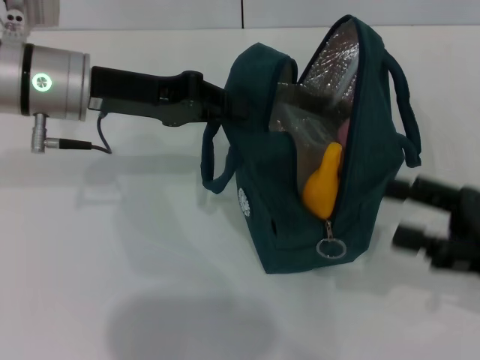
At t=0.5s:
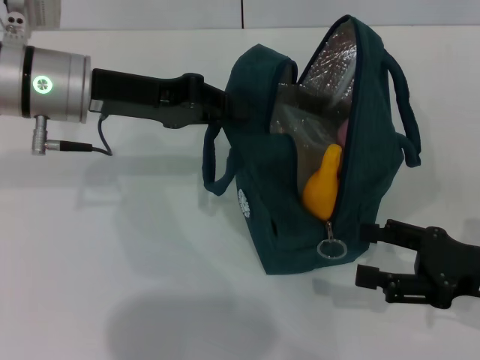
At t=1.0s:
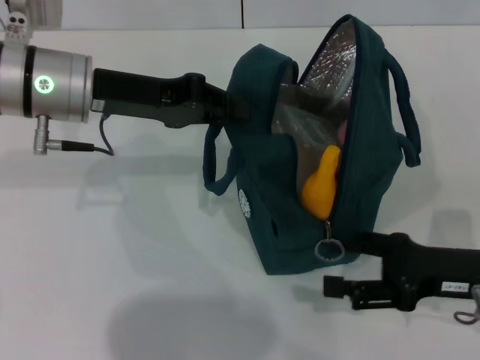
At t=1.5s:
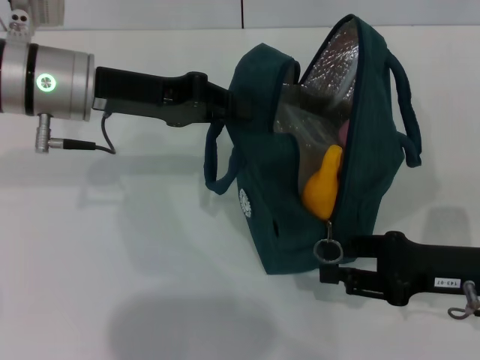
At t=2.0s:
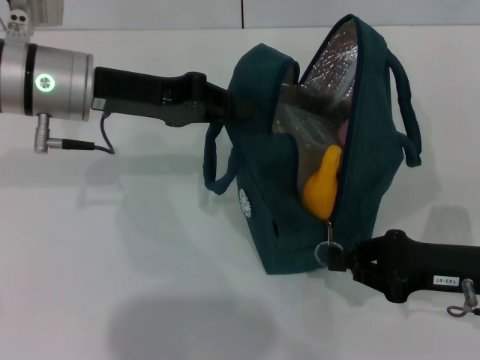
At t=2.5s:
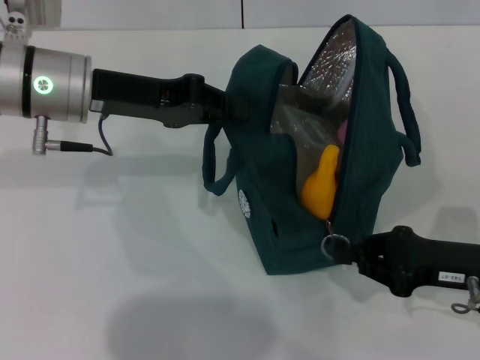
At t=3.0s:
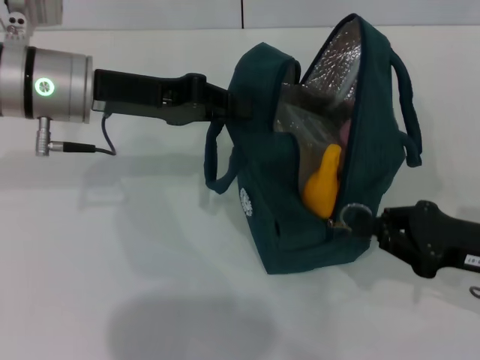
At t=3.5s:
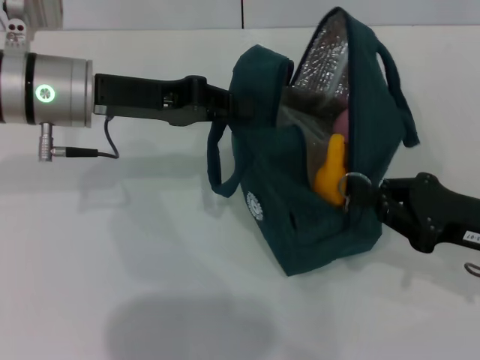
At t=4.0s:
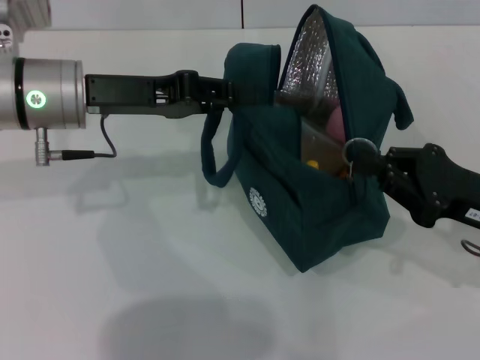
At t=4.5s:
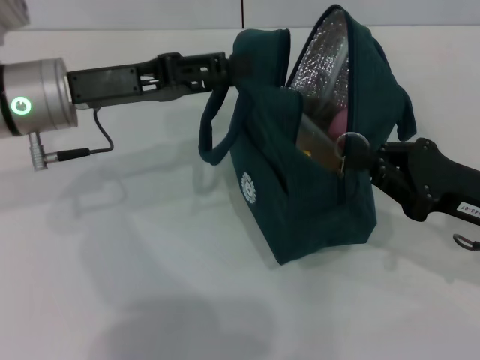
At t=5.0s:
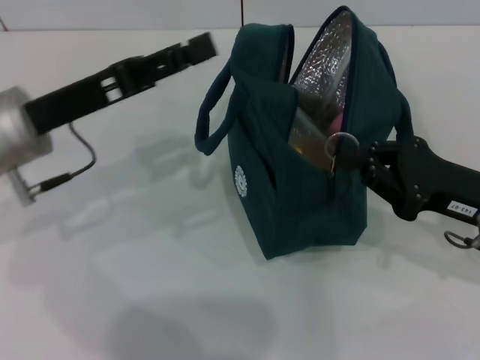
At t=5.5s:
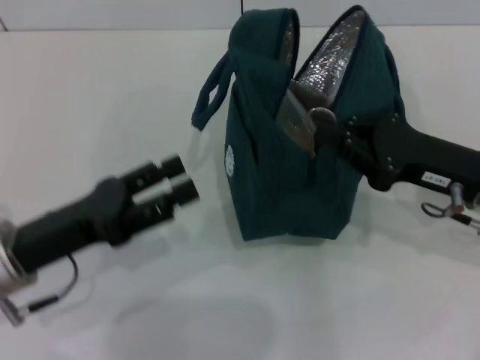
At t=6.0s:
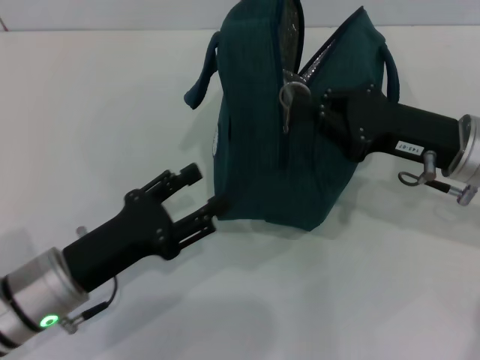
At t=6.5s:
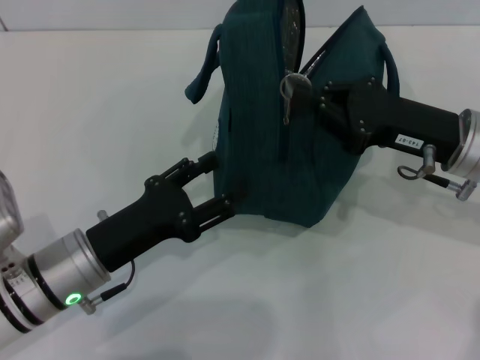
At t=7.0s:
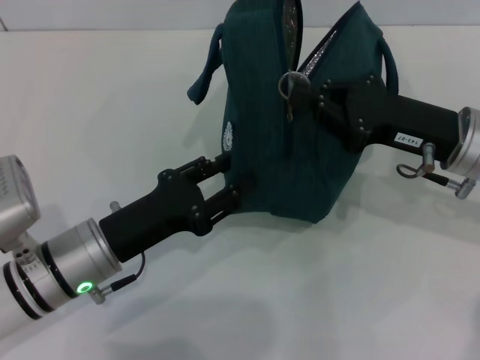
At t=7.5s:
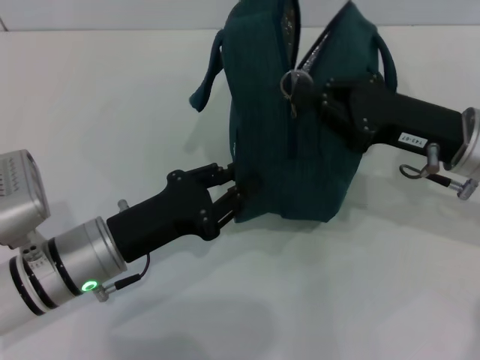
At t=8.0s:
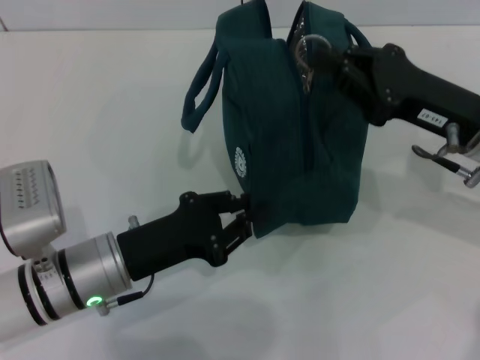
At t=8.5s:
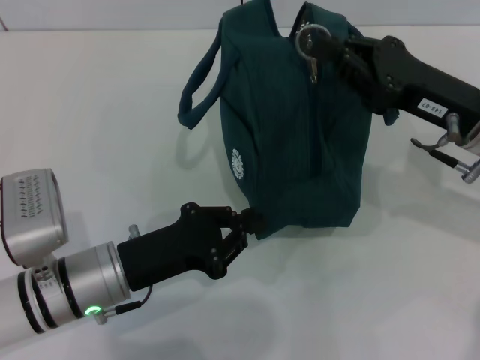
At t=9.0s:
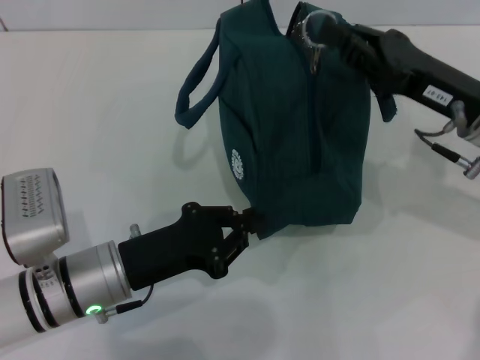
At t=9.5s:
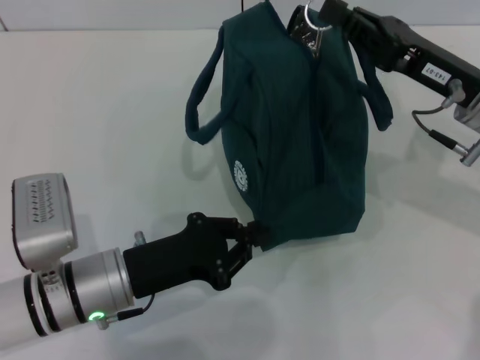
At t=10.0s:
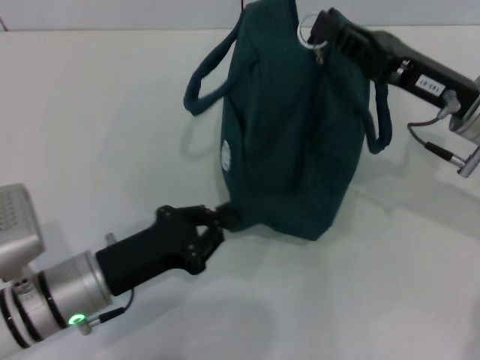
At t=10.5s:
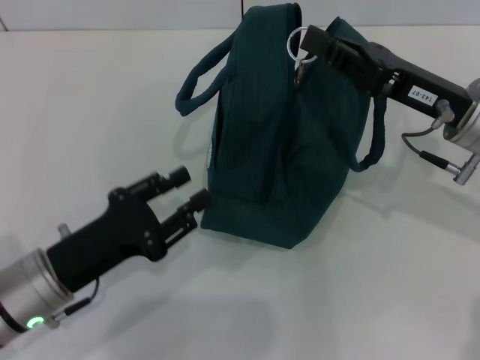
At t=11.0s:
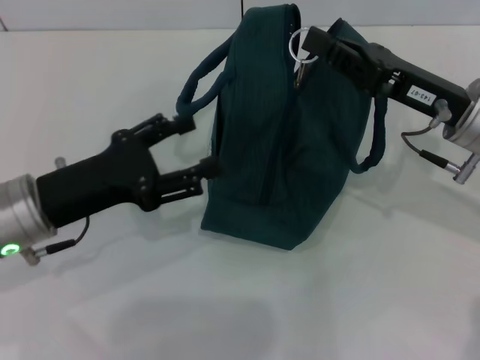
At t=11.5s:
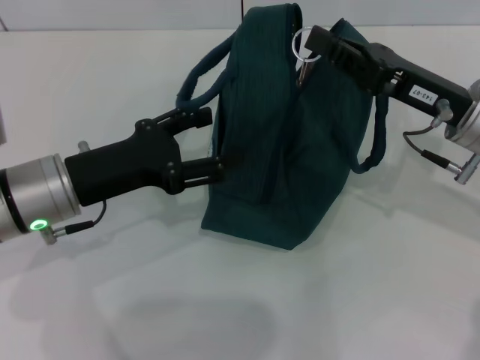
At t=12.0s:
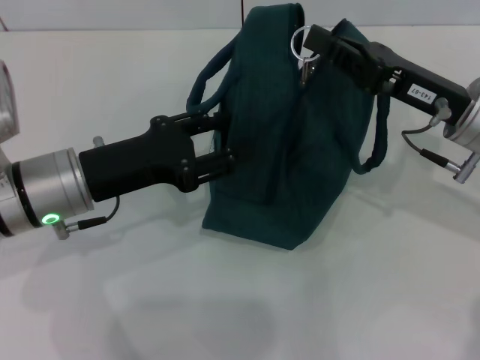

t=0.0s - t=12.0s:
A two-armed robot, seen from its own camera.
Step, t=0.0s - t=4.5s: Hold the lunch bag with your left hand.
t=0.0s - t=2.0s: The right gripper travels downward by roughly 5 cm, and closes its fingers.
t=4.0s - t=6.0s: The left gripper travels backward and downward by some 20 cm, and opens. The right gripper travels forward and to the left by approximately 10 cm.
t=6.0s - t=8.0s: The left gripper closes.
t=10.0s - t=12.0s: The left gripper travels upward and forward by some 10 cm, and opens.

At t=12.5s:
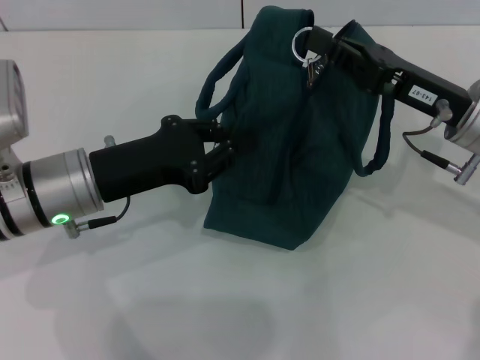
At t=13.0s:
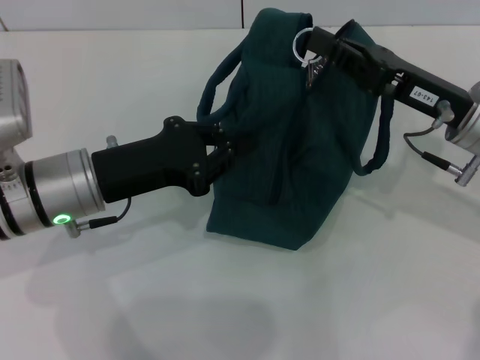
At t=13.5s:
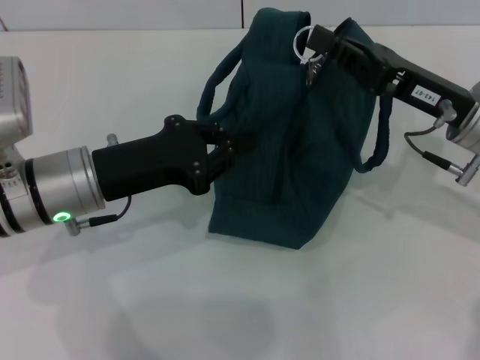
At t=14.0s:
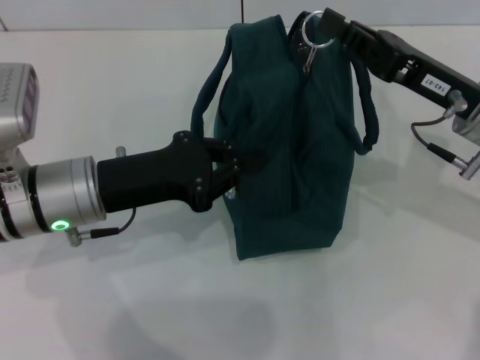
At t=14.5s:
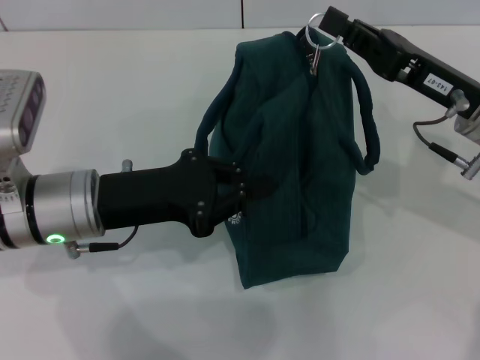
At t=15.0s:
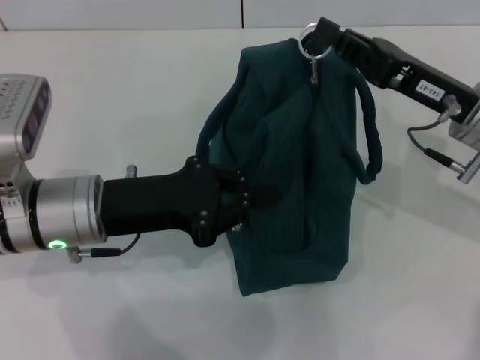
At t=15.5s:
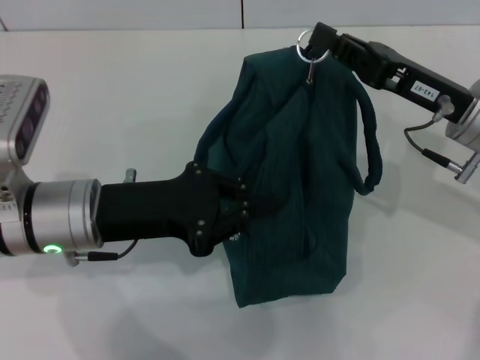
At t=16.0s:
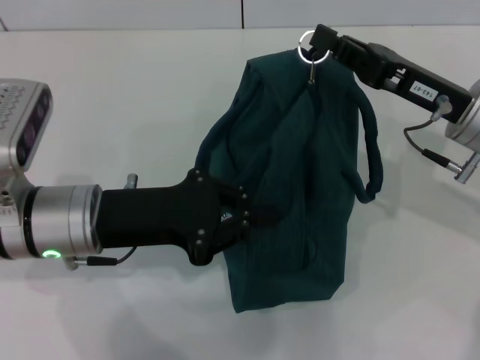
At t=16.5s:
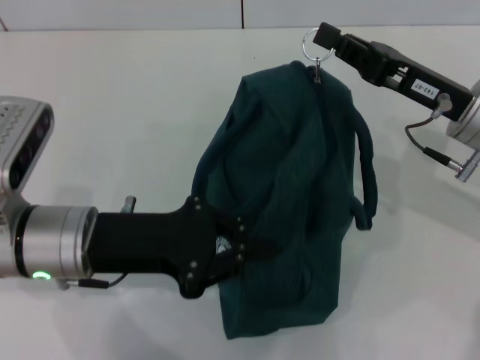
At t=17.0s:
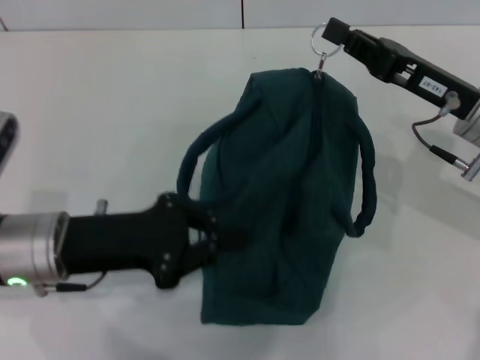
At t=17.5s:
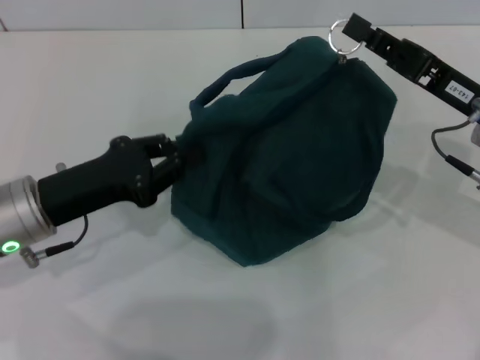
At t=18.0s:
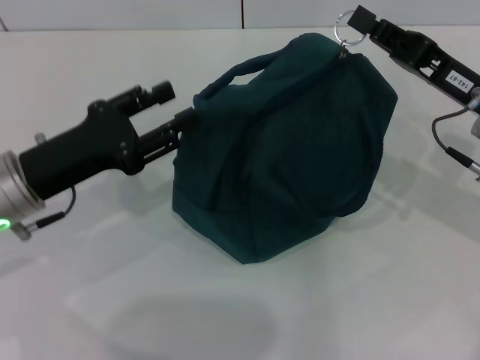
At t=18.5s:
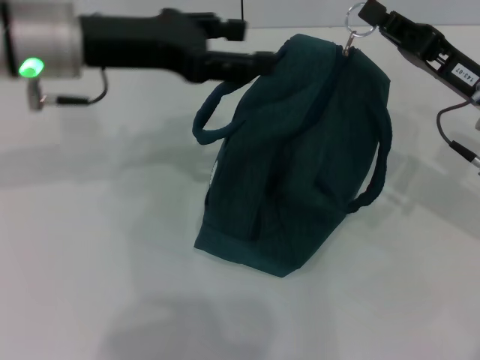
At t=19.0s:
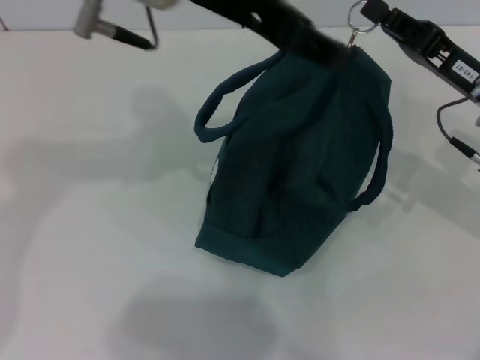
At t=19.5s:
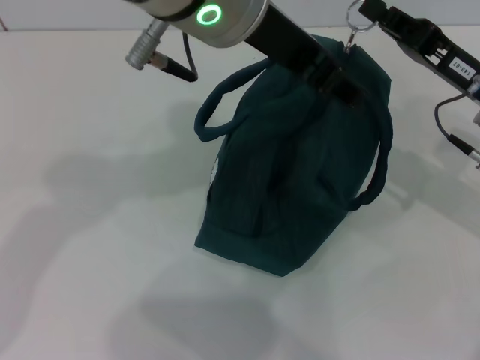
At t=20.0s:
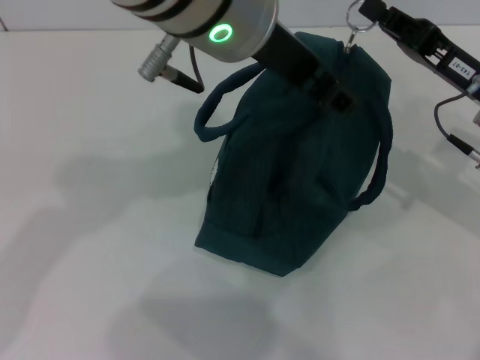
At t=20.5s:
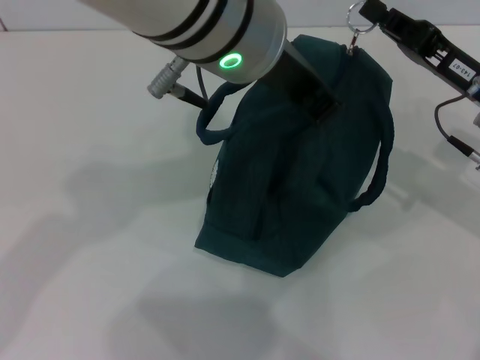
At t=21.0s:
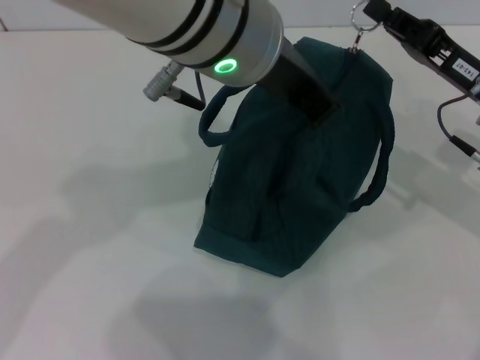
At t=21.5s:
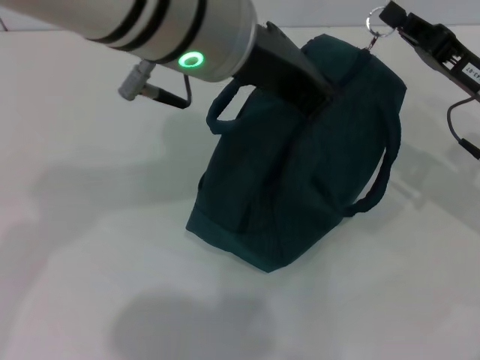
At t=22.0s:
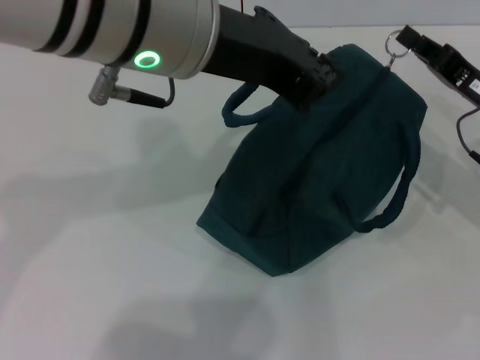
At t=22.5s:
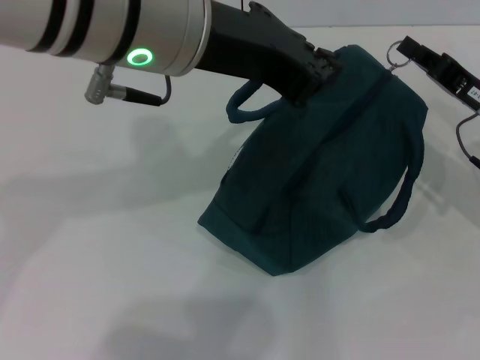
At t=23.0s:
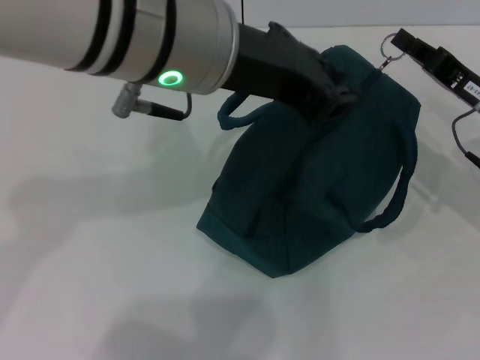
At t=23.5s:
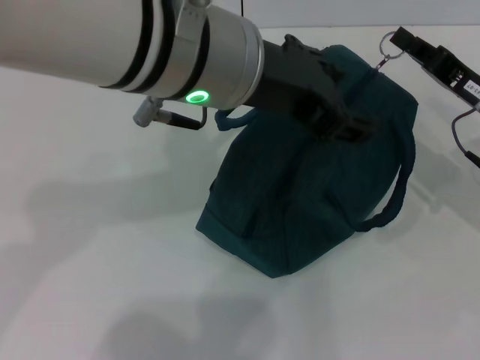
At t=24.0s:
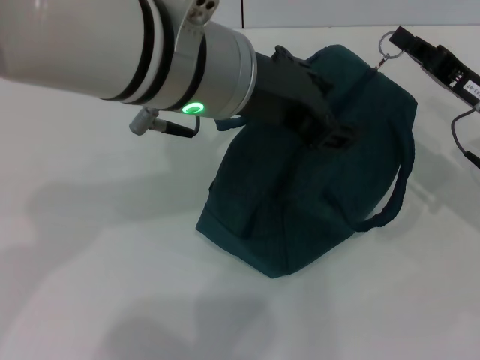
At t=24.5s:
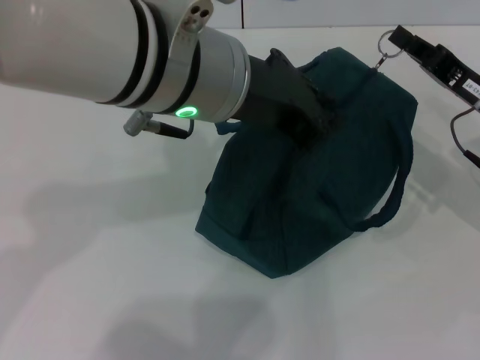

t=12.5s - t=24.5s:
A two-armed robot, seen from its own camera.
t=12.5s - t=14.5s: The left gripper closes up.
t=16.5s - t=18.5s: The left gripper goes roughly 15 cm upward and forward, and opens its fingers.
t=18.5s - t=20.5s: The left gripper shifts about 15 cm to the right and upward, and closes its fingers.
t=20.5s - t=22.5s: The left gripper is displaced to the left by about 5 cm, and closes its fingers.
t=22.5s - t=24.5s: The left gripper opens its fingers.

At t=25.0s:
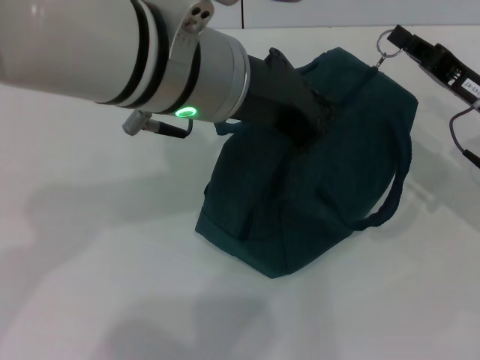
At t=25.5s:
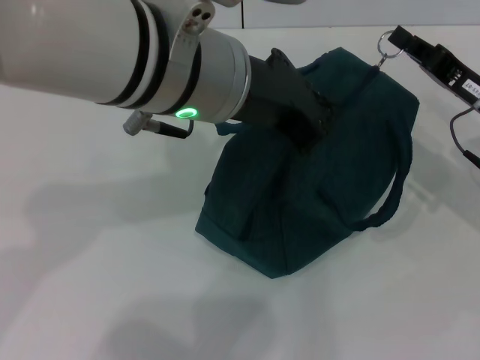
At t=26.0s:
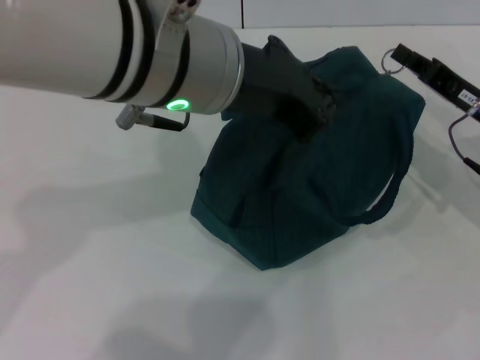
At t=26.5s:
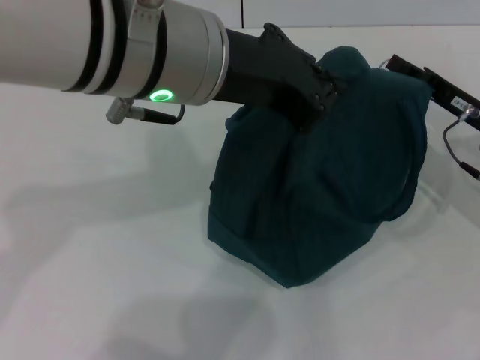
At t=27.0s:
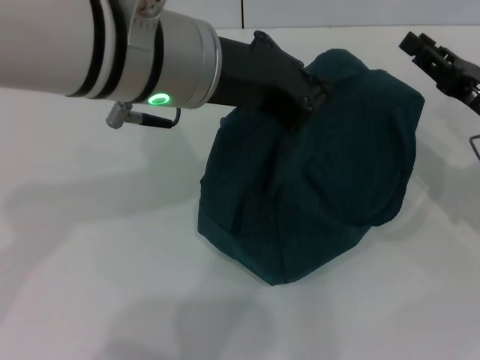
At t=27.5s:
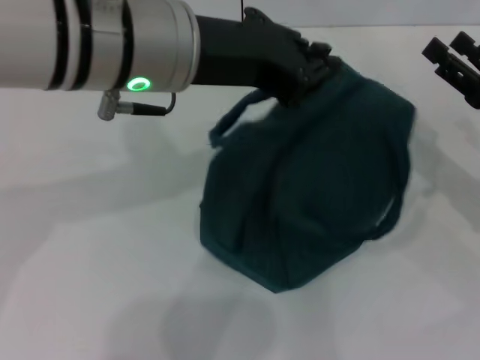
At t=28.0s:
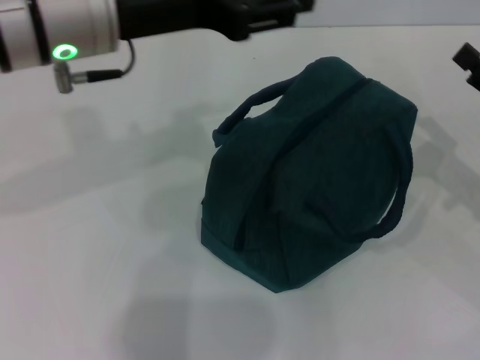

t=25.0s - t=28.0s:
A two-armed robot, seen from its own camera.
t=25.0s - t=26.5s: The grippers make only small movements.
t=26.5s - t=28.0s: The right gripper is displaced backward and to the right by roughly 10 cm, and opens its fingers. The left gripper is displaced to the left by some 10 cm, and opens.
